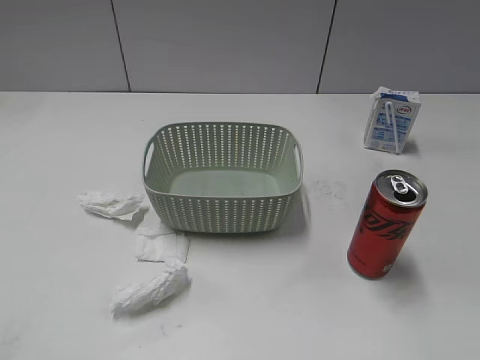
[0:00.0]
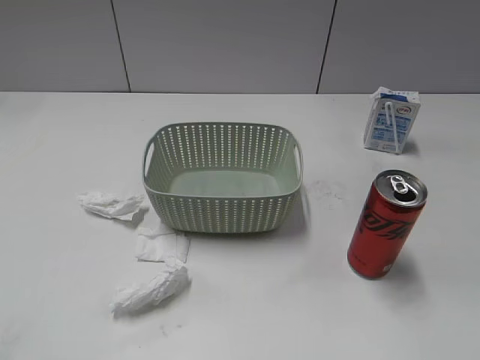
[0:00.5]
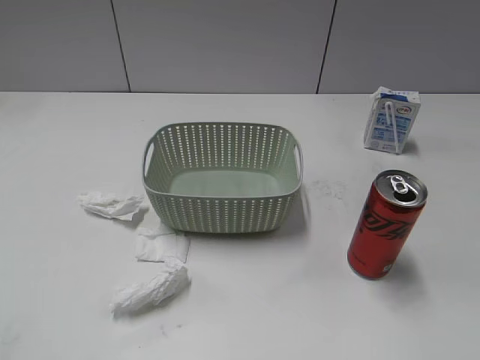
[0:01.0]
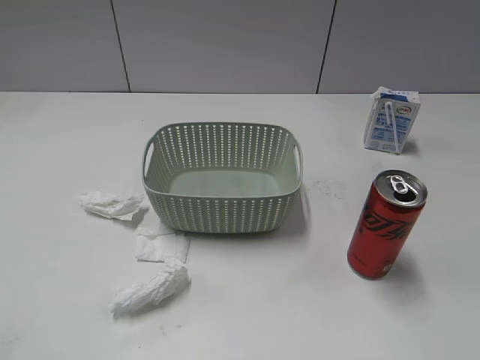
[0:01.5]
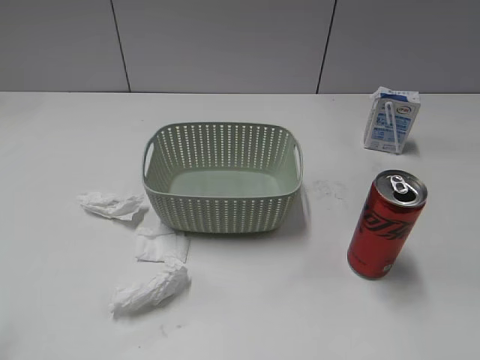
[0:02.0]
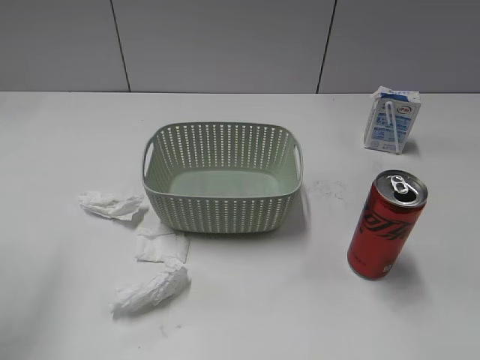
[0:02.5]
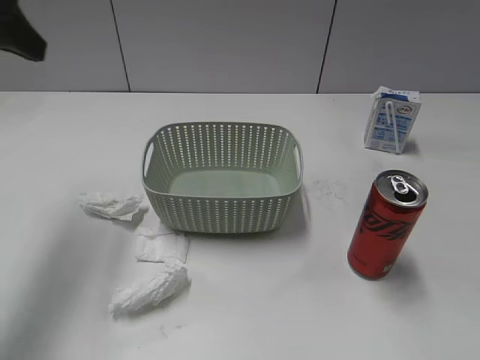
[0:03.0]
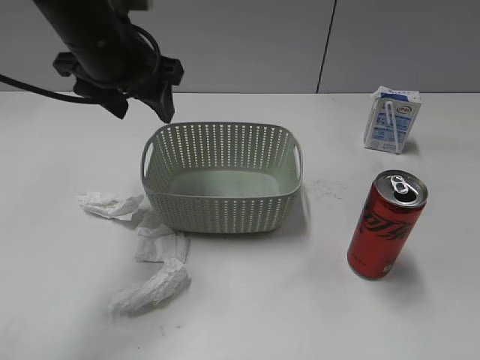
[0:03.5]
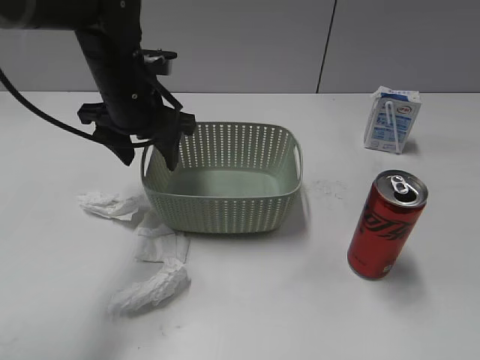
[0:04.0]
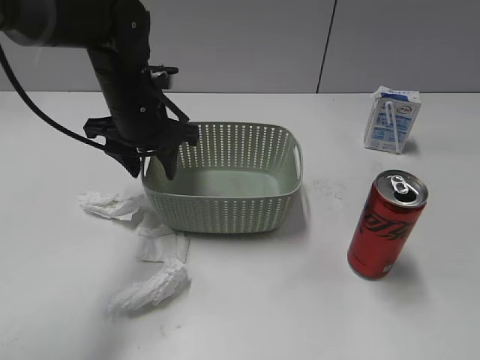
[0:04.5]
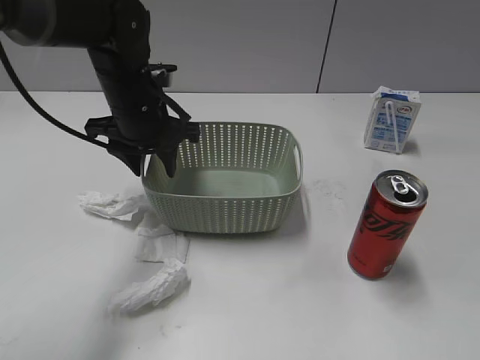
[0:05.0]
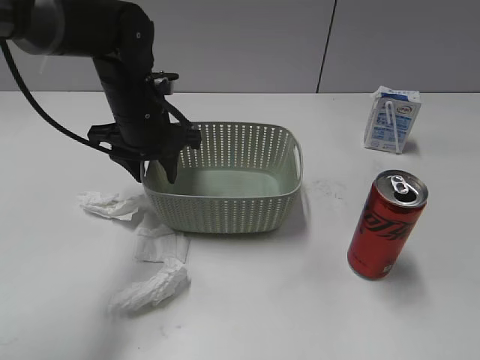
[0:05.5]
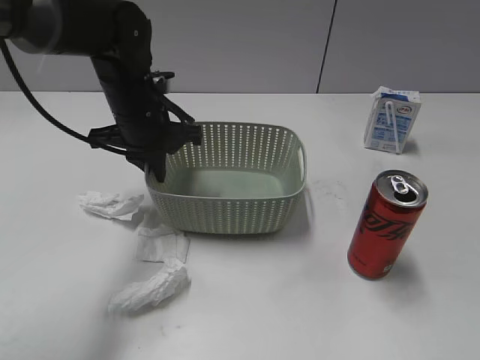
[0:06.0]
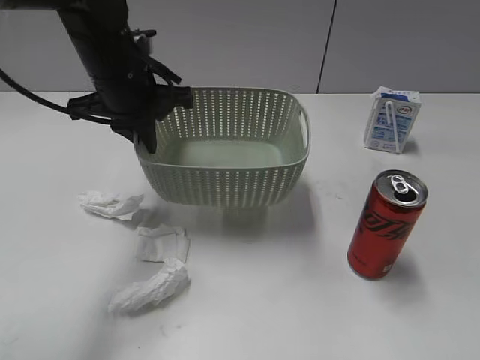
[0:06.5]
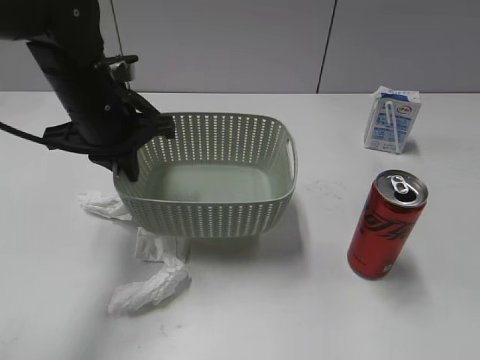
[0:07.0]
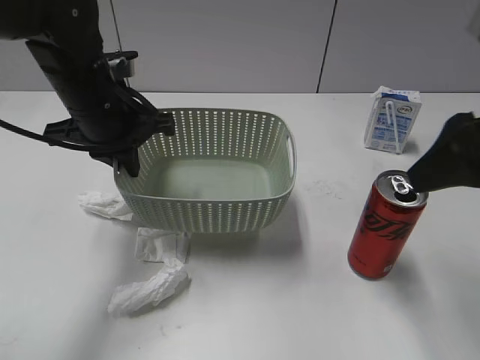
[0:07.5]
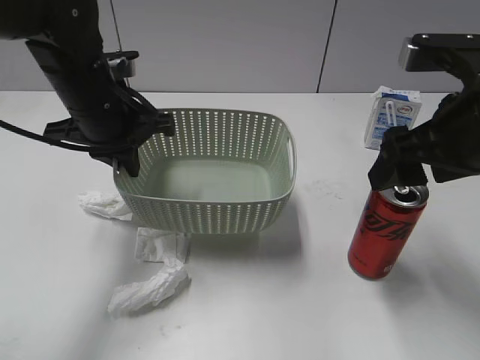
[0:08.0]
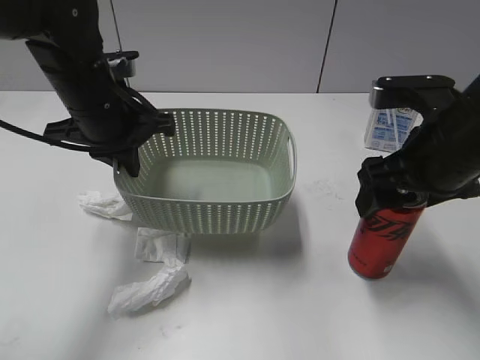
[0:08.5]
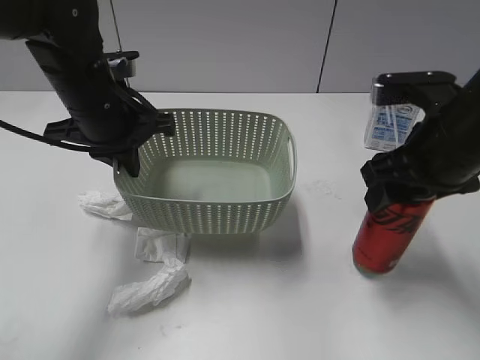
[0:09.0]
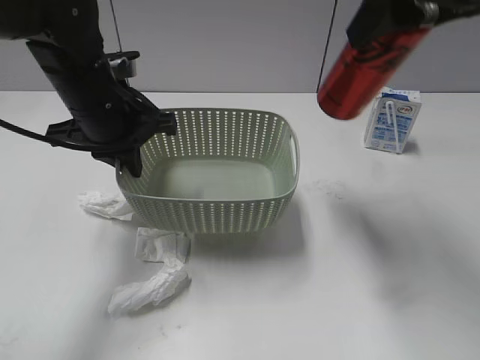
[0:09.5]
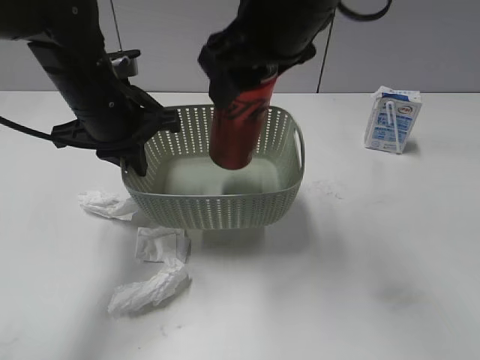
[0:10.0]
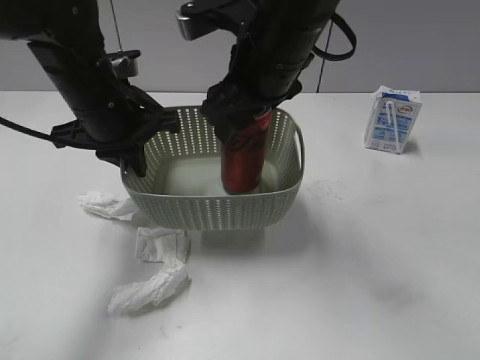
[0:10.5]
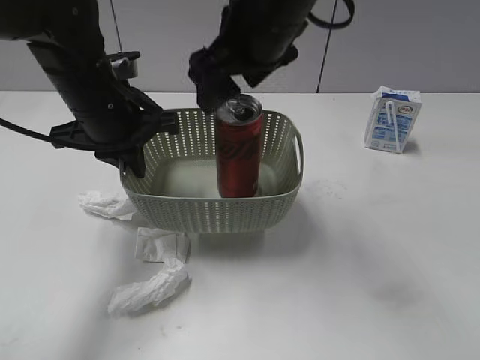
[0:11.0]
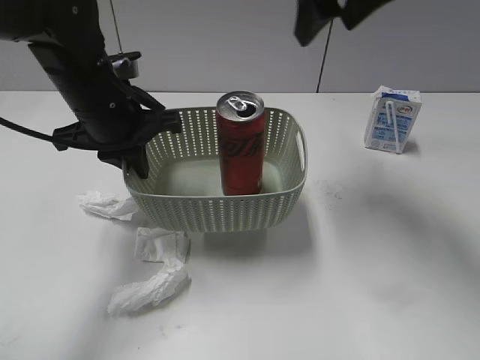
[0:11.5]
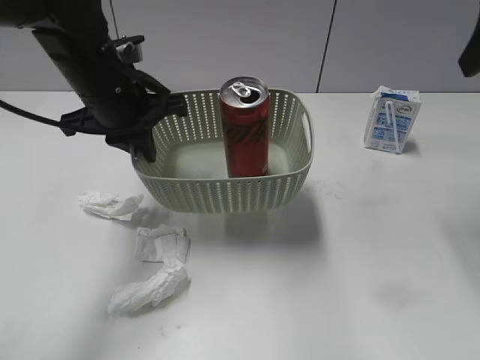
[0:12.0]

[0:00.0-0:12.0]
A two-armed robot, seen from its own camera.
Step, 0:03.0 to 0:06.0: Grasp the basket with left gripper.
Step, 0:06.5 to 0:07.0: Lift the basket with left gripper.
Step, 0:07.5 to 0:09.0: Grasp the cola can with right gripper.
Step, 0:09.5 to 0:11.0: Place the cola can in the basket with right gripper.
0:02.0 to 0:04.0: The left gripper travels forward, to the right and downward by roughly 40 cm.
0:04.0 to 0:06.0: The left gripper closes its fingers.
0:06.0 to 0:08.0: The right gripper shifts about 25 cm forward and to the left, and opens up. Meanwhile the left gripper changes place by roughly 5 cm.
0:08.0 to 0:10.0: The right gripper moves up and down over approximately 20 cm, changing direction 2 times, and closes.
0:10.0 to 0:12.0: The right gripper heads to the right, covering roughly 25 cm, and opens.

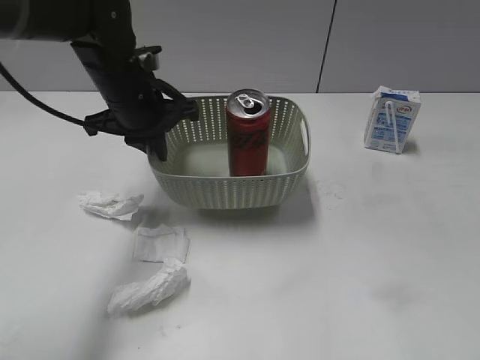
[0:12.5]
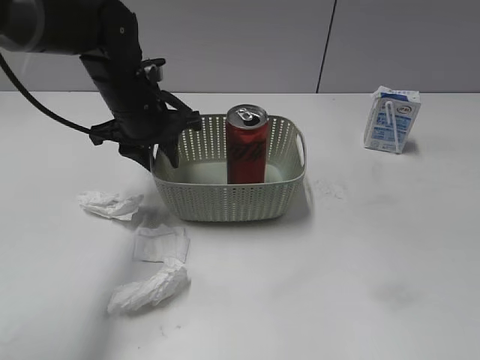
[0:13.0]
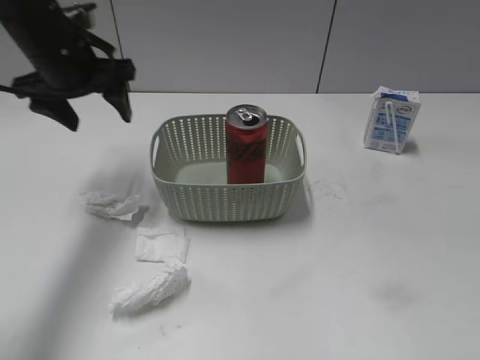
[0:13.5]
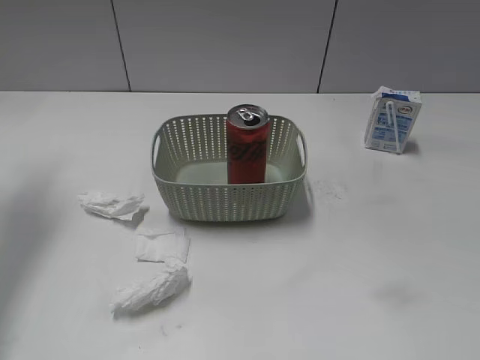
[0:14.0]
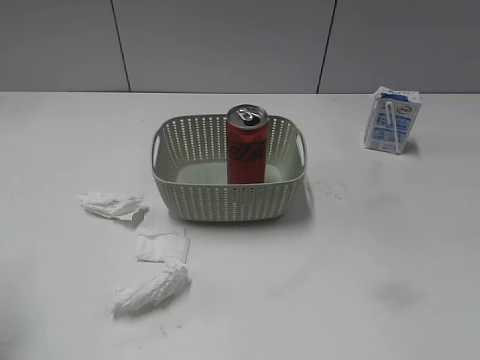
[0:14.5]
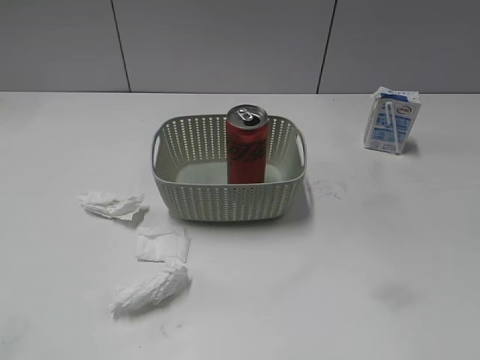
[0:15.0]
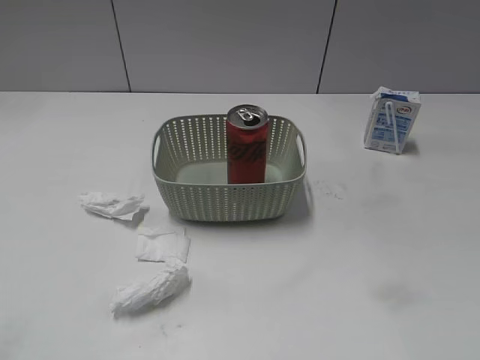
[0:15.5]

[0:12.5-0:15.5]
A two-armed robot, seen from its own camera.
0:12.5 to 0:14.0: The right gripper goes roughly 10 cm backward; the left gripper heads to the left and upward, covering approximately 25 cm, and opens its fingers.
0:14.0 to 0:15.5: The left gripper goes roughly 35 cm backward.
